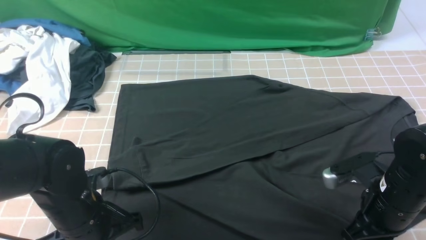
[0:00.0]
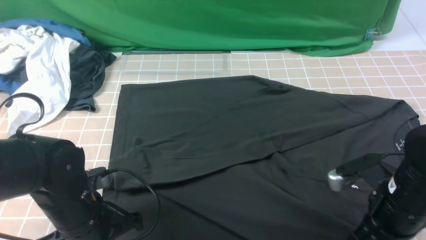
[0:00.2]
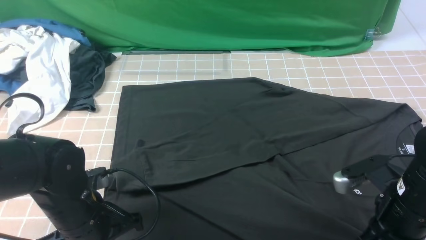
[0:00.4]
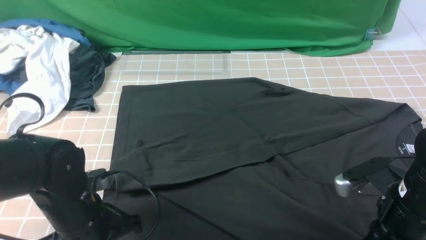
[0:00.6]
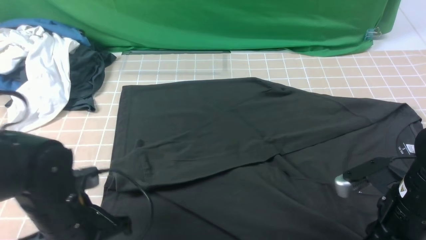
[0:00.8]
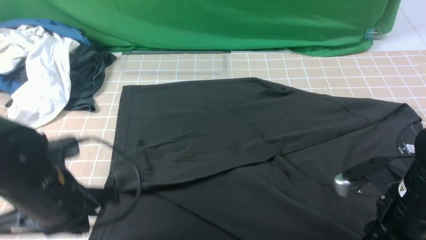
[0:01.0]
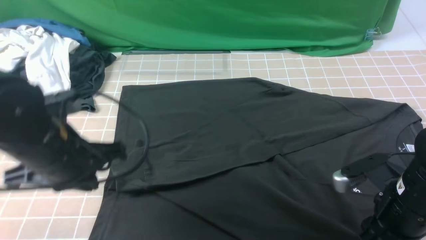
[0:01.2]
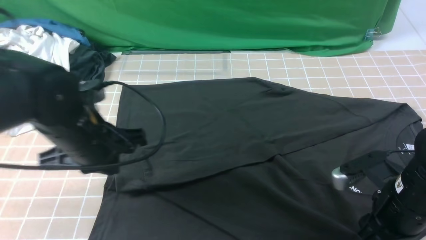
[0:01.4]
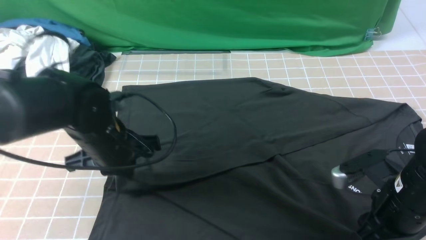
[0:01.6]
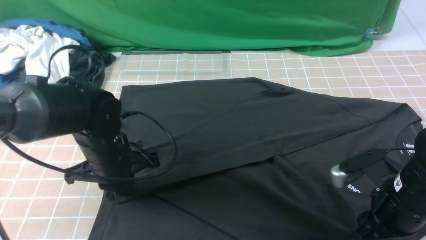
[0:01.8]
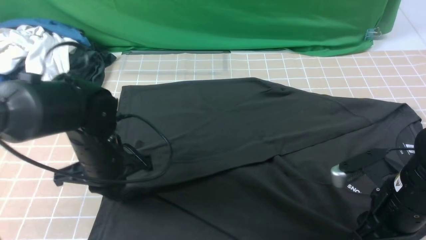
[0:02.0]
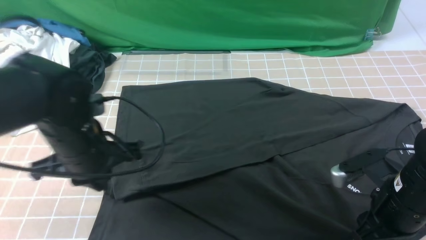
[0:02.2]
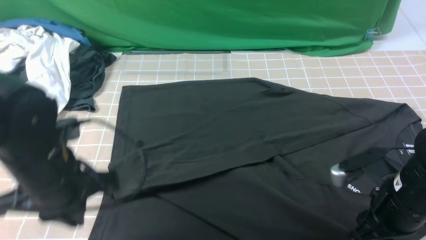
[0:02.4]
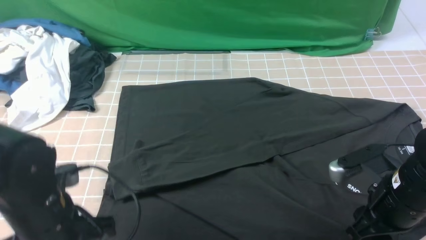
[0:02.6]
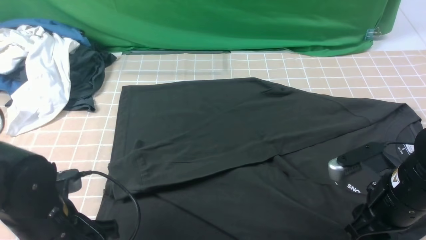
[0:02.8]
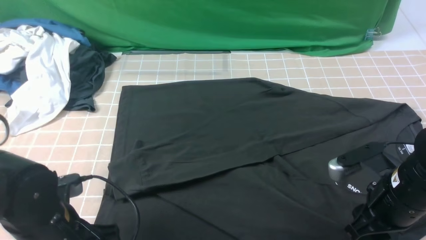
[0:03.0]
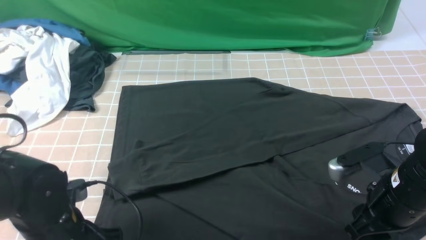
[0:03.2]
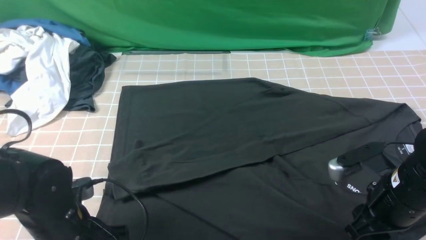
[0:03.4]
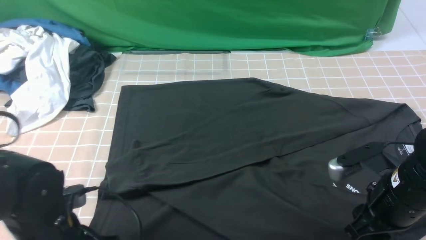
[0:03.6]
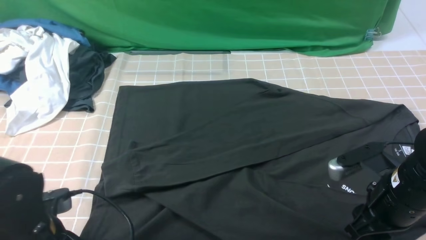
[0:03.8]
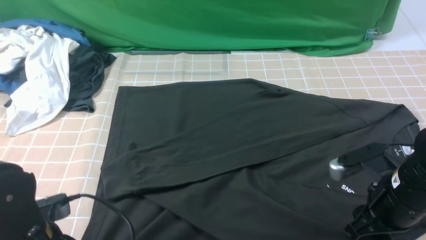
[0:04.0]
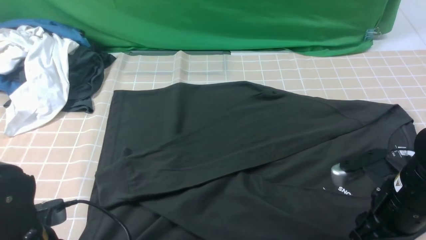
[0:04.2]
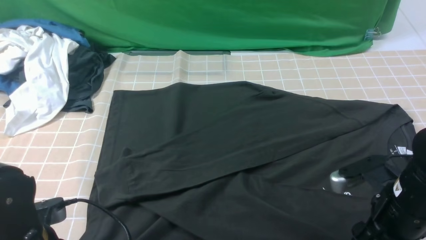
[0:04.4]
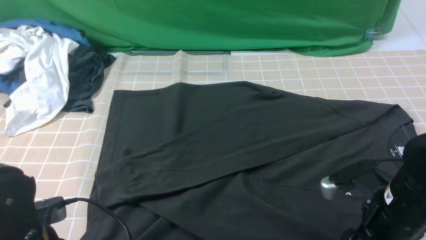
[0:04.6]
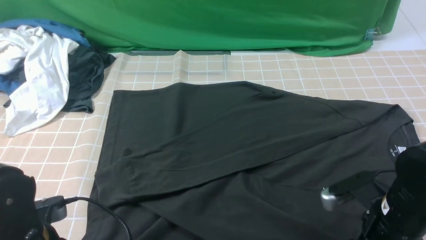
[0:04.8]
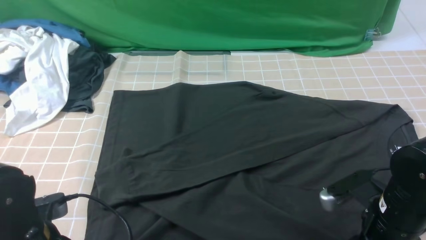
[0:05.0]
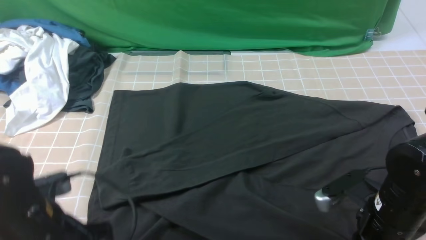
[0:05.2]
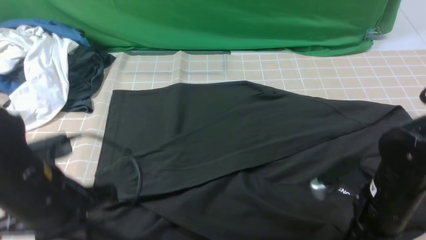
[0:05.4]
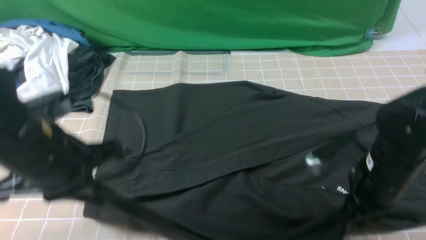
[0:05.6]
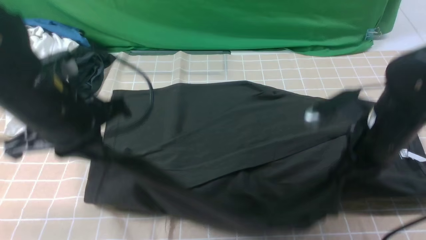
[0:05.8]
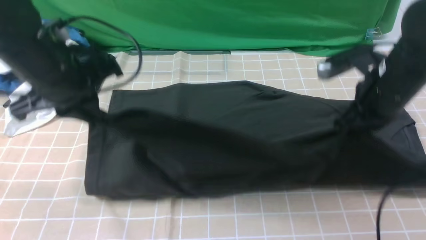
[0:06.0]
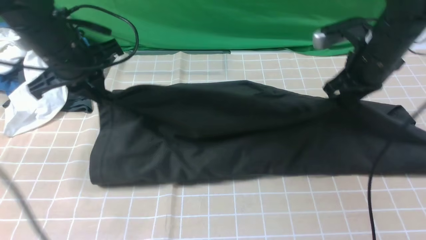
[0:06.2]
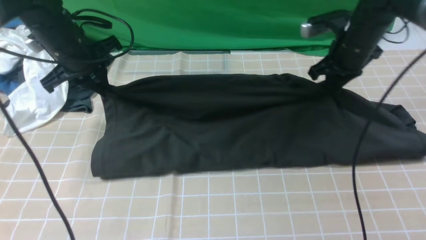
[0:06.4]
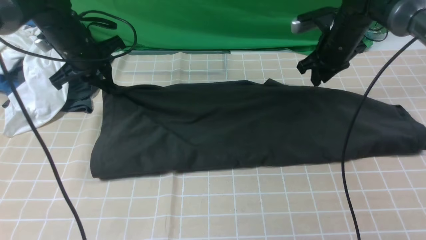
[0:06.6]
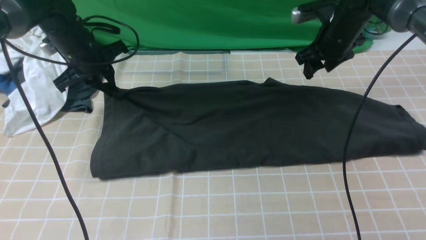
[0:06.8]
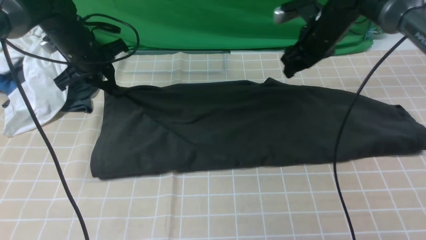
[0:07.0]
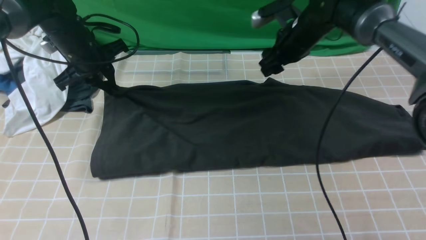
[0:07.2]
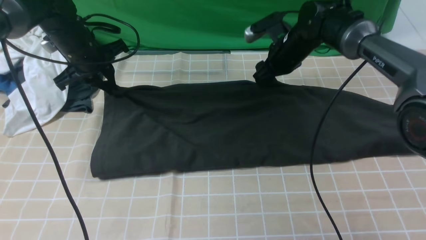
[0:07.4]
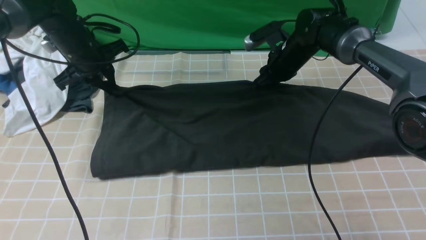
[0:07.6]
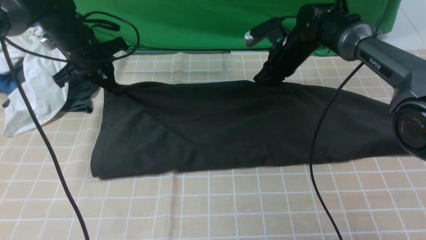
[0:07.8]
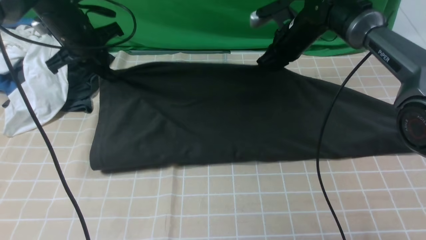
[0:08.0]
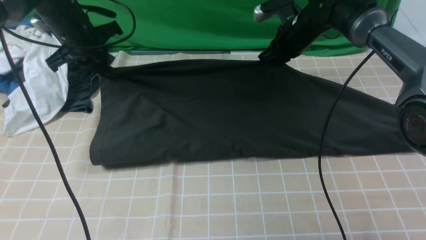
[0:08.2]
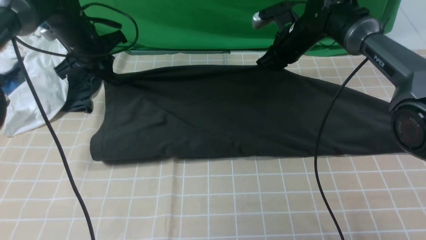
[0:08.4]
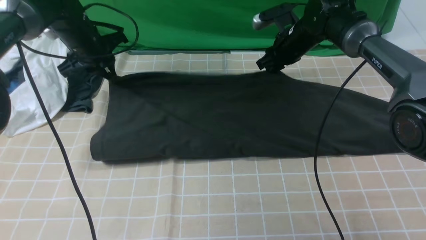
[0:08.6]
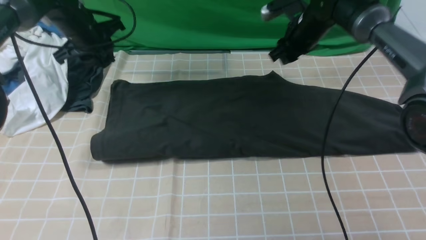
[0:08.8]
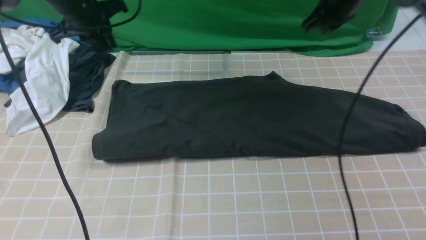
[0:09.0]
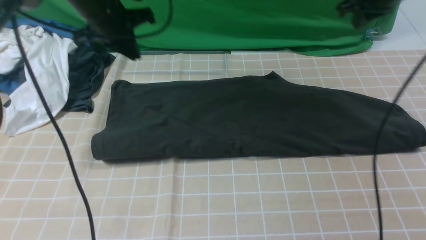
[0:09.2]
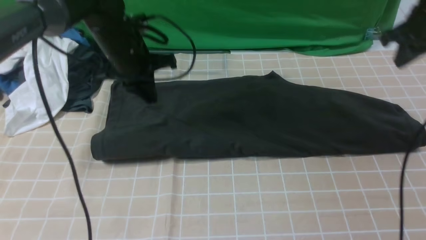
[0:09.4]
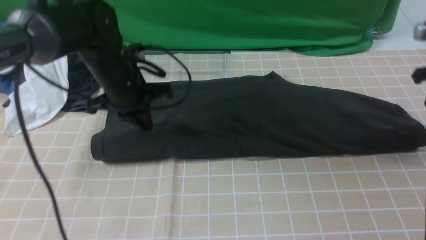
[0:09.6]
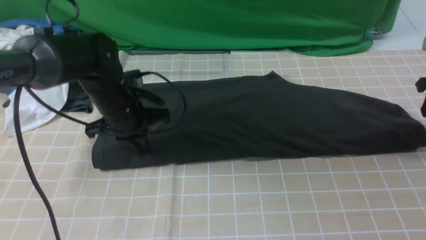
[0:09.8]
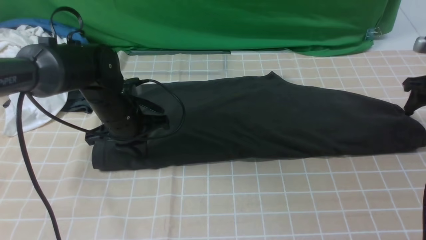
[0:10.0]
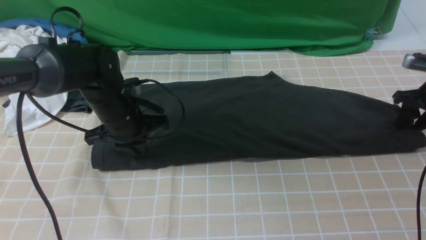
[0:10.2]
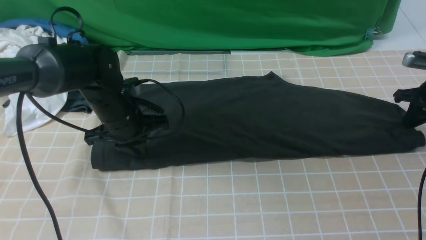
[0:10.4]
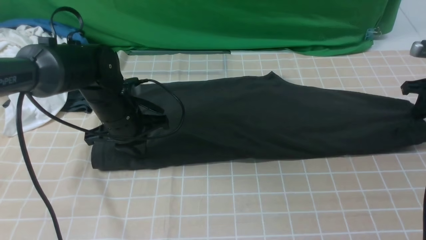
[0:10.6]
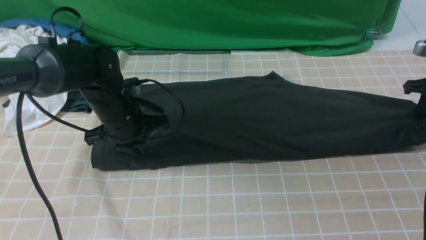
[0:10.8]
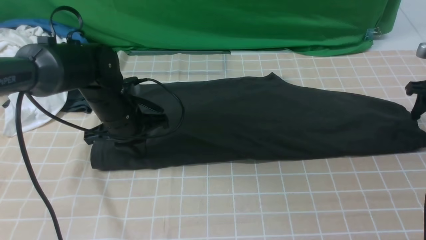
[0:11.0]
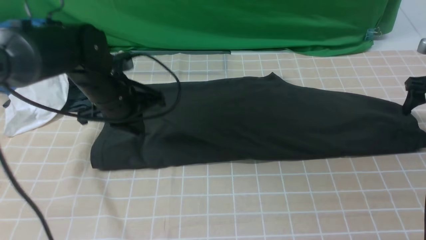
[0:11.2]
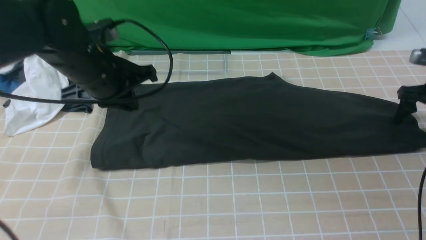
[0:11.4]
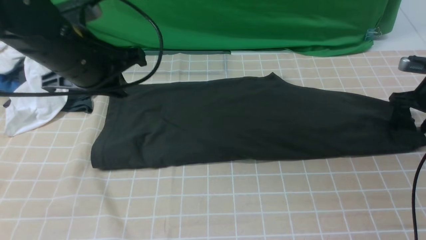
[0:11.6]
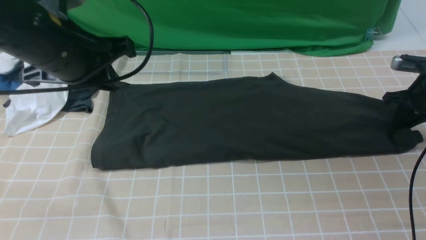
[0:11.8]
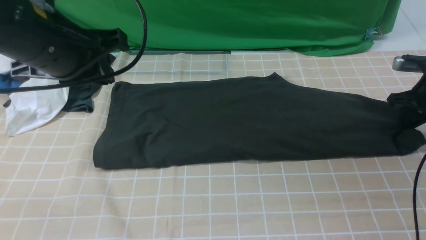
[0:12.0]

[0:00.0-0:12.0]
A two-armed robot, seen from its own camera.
Step, 0:00.0 to 0:05.4: use both arms simultaneously to clamp the lower edge of the clothing fabric.
Step, 0:05.6 to 0:08.8: use both arms to drag the lower edge of the fabric forward and fold it over the upper edge.
Step, 0:09.0 to 0:12.0: use the right arm to clamp the right edge of the fabric.
0:00.0 to 0:01.6: The left gripper shifts about 10 cm forward; the right gripper opens its fingers.
0:01.6 to 0:03.0: The left gripper shifts about 10 cm backward, and opens its fingers.
0:03.0 to 0:04.4: The left gripper closes its fingers.
0:04.4 to 0:06.0: The grippers both shift forward and upward by about 20 cm. The right gripper closes up.
0:06.0 to 0:07.6: Both grippers move forward and downward, roughly 20 cm. The right gripper opens up.
0:07.6 to 0:09.0: The right gripper is displaced upward and to the right by approximately 15 cm. The left gripper is displaced upward by approximately 5 cm.
0:09.0 to 0:10.4: The right gripper shifts about 25 cm to the right, downward and backward, and opens, then closes once more; the left gripper travels backward, downward and to the right by approximately 15 cm.
0:10.4 to 0:12.0: The left gripper goes some 20 cm upward and backward. Meanwhile the right gripper opens, then closes once more.

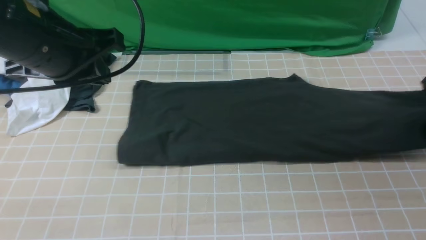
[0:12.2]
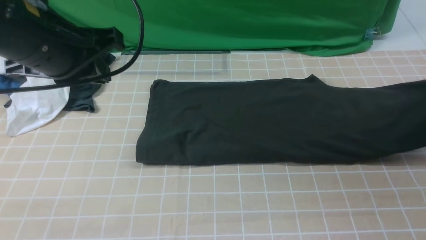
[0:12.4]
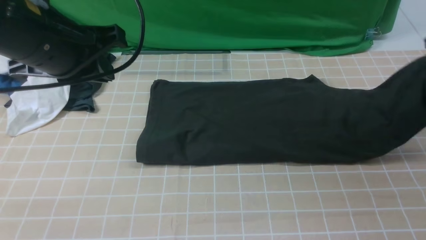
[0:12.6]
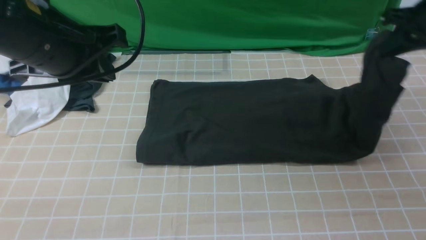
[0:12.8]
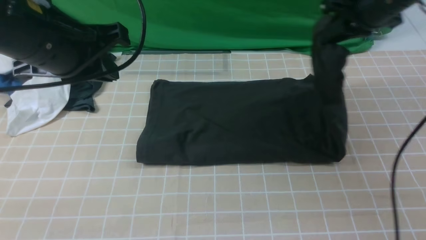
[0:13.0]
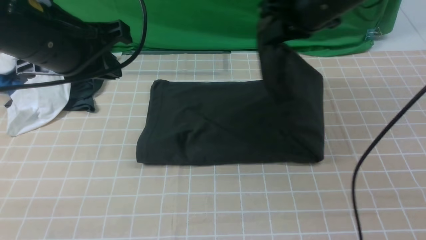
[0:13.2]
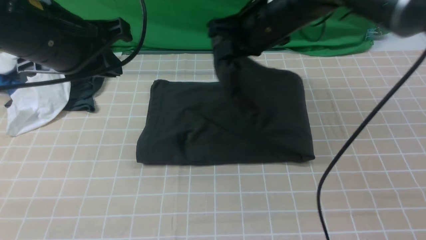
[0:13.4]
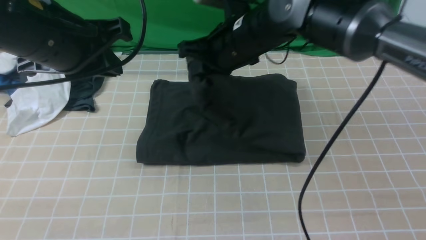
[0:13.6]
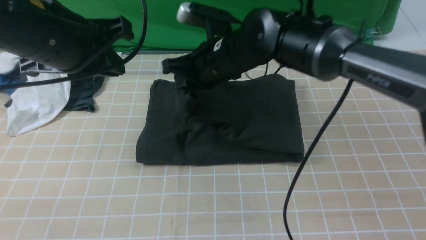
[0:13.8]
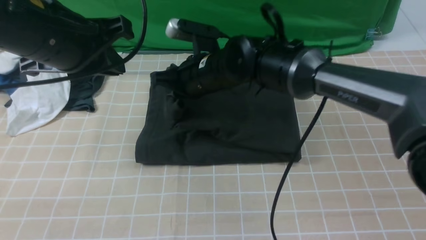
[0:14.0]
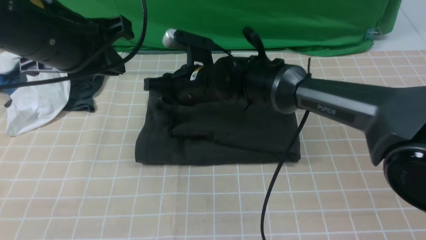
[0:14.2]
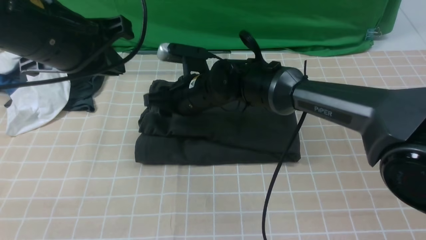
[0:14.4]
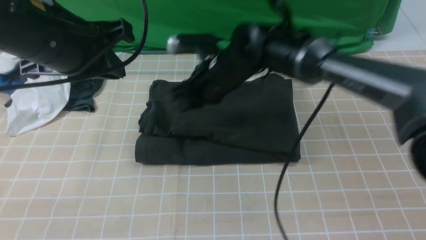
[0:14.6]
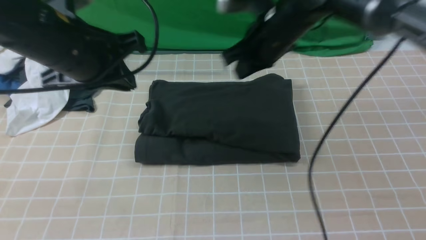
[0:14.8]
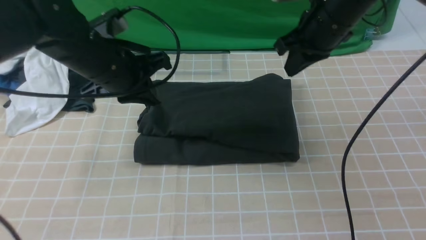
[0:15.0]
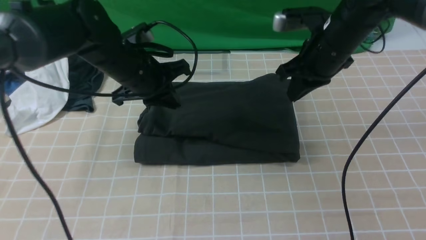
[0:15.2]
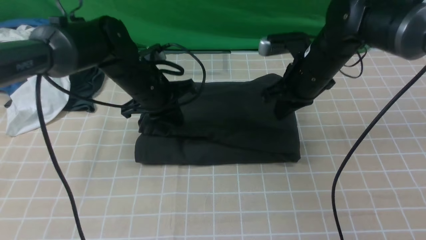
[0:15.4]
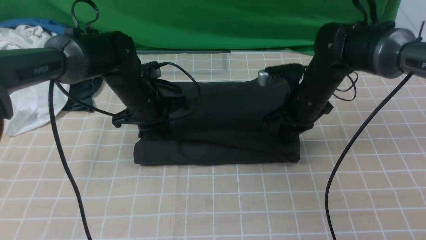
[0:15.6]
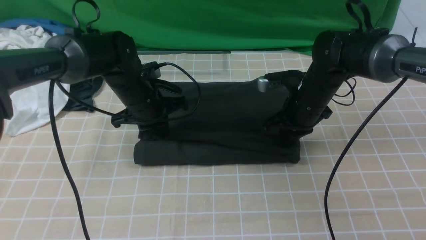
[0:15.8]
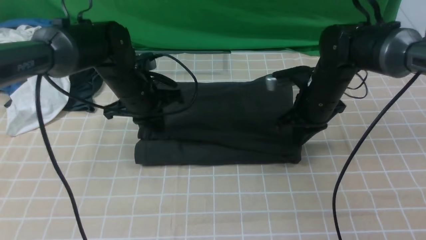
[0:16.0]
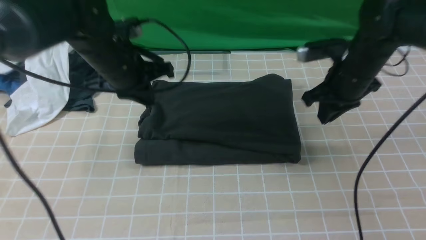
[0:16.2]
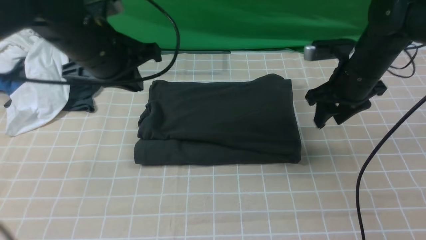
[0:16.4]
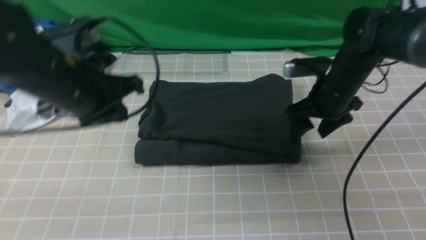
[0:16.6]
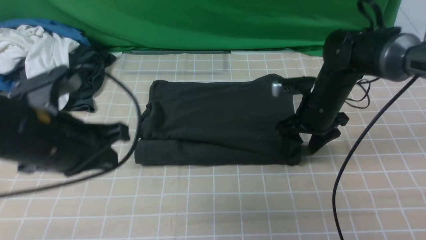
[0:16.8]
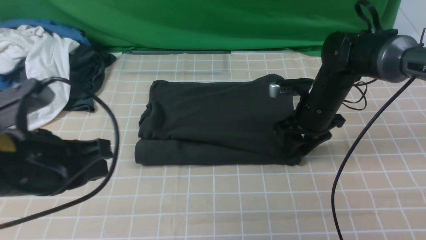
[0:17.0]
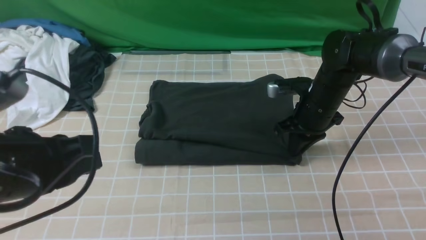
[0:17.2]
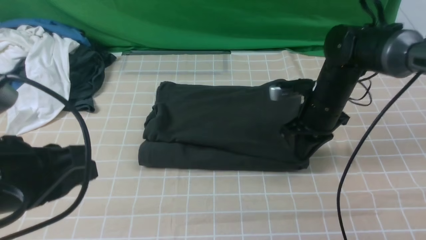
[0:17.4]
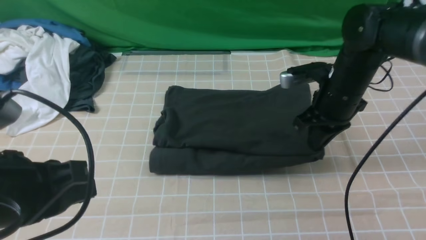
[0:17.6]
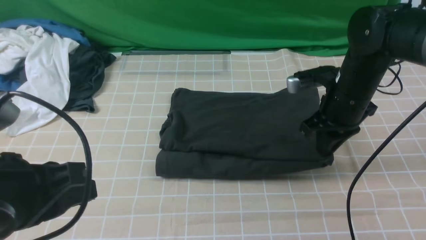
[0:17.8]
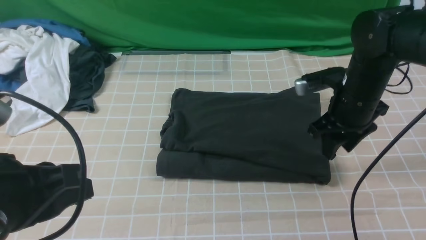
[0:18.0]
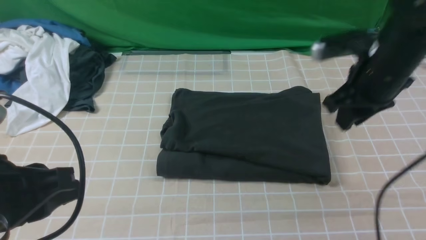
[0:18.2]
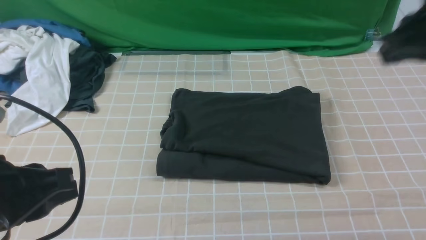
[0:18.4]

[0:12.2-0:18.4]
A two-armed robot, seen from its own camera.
Step, 0:12.2 to 0:14.6: use the right arm to drag the right edge of the fabric to the left and folds it over the left edge.
0:12.2 to 0:13.8: The right gripper travels to the left by about 40 cm.
0:13.8 to 0:15.4: The right gripper is displaced to the right by about 15 cm, and opens and closes again, while the left gripper moves downward and forward, some 20 cm.
0:15.4 to 0:16.8: The left gripper shifts approximately 20 cm backward and upward. Meanwhile the right gripper changes place by approximately 5 cm, and opens.
0:16.8 to 0:18.4: The left gripper moves backward, roughly 10 cm. The right gripper heads upward and backward, covering some 30 cm, and closes its fingers.
